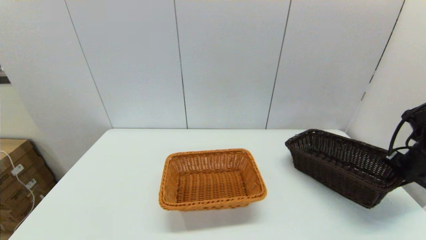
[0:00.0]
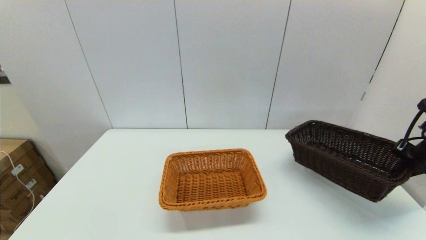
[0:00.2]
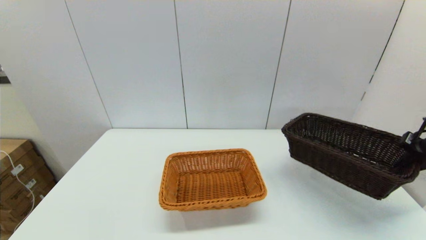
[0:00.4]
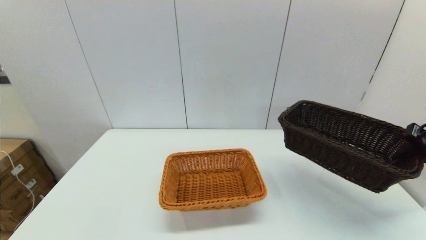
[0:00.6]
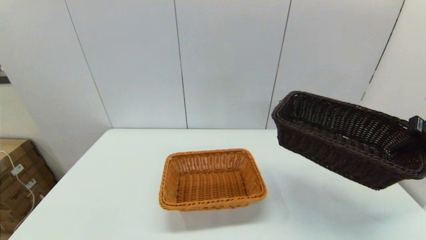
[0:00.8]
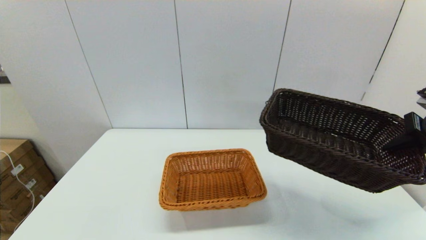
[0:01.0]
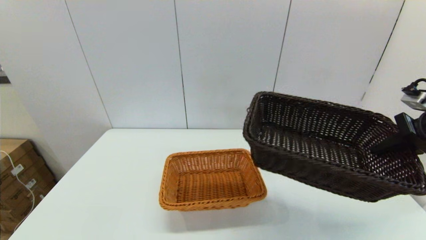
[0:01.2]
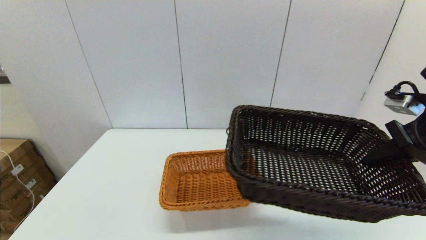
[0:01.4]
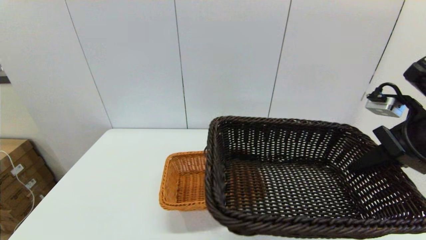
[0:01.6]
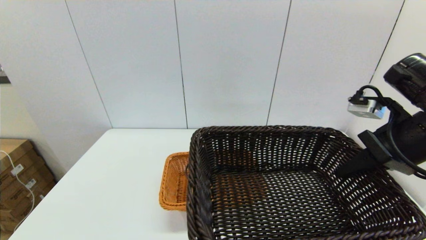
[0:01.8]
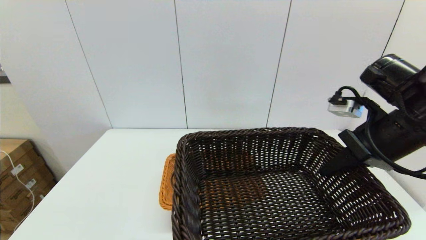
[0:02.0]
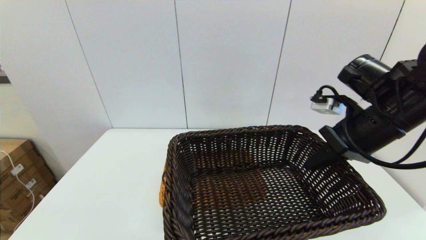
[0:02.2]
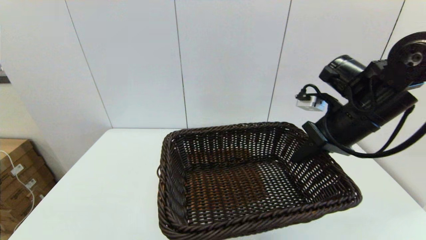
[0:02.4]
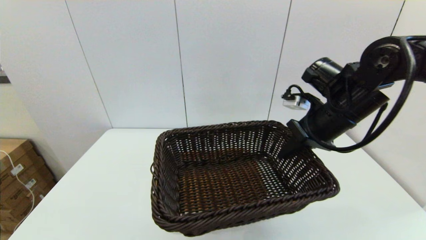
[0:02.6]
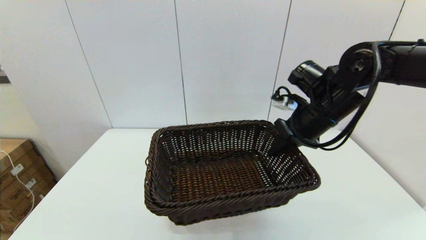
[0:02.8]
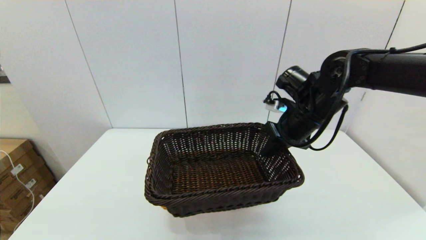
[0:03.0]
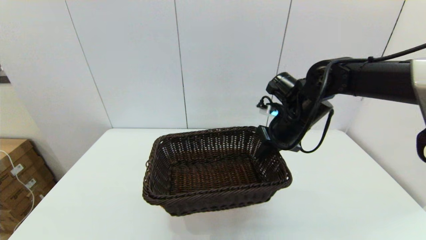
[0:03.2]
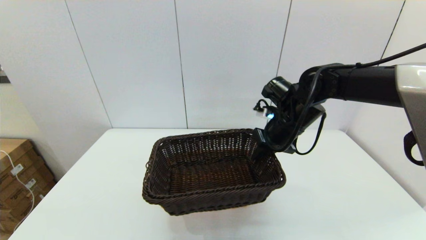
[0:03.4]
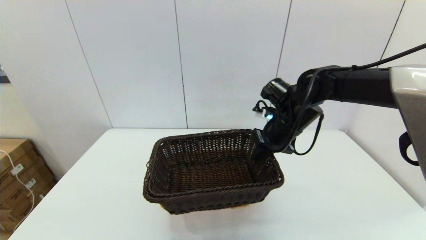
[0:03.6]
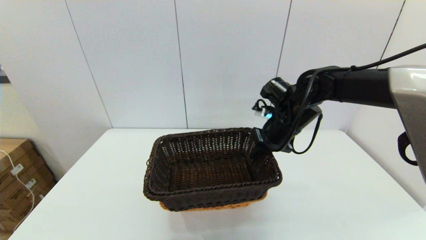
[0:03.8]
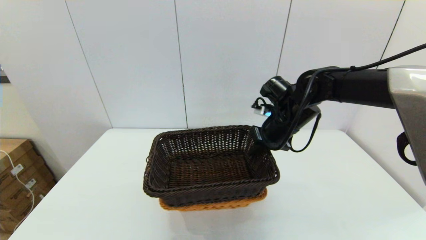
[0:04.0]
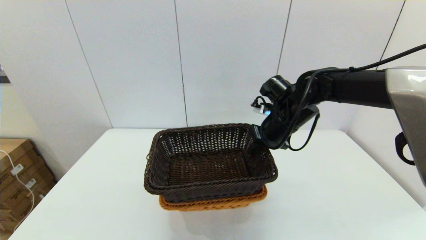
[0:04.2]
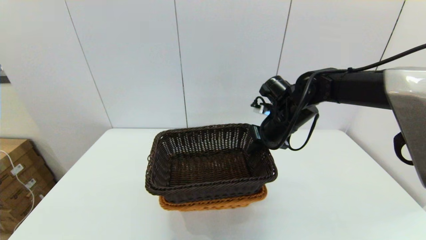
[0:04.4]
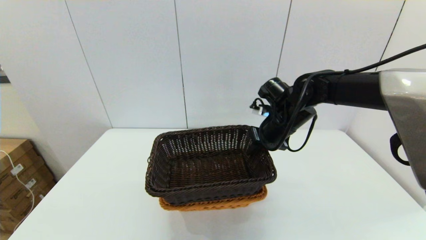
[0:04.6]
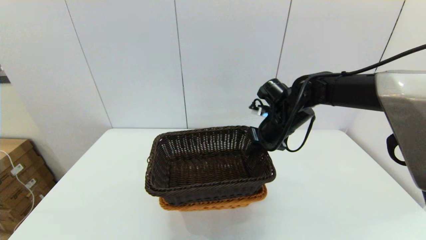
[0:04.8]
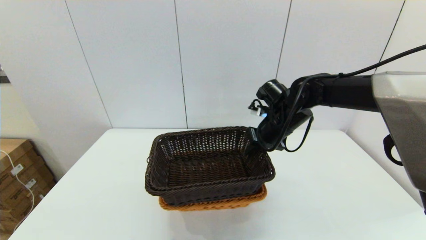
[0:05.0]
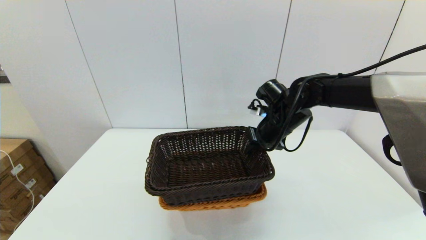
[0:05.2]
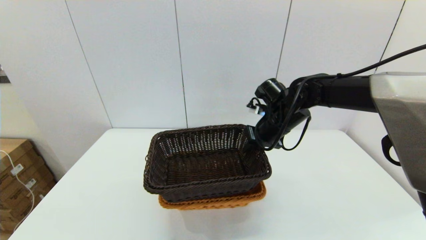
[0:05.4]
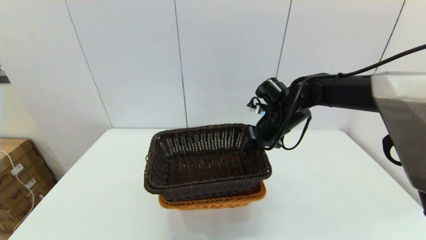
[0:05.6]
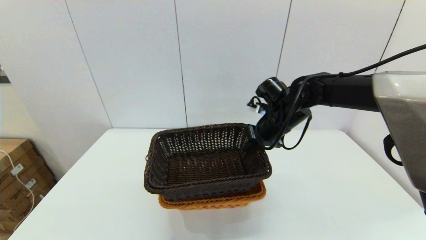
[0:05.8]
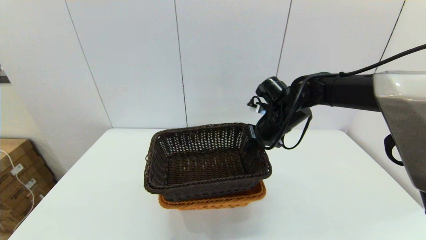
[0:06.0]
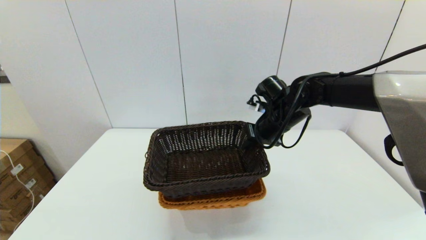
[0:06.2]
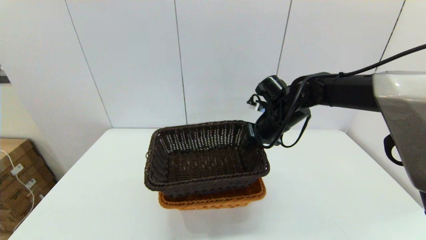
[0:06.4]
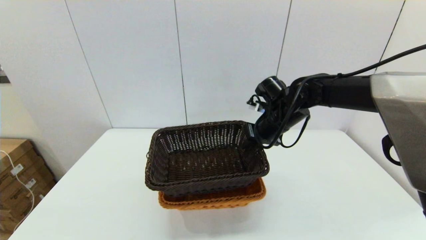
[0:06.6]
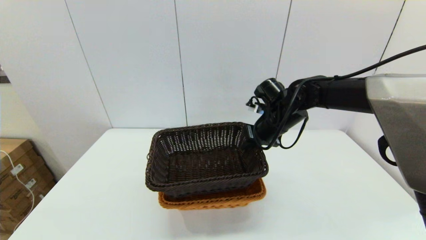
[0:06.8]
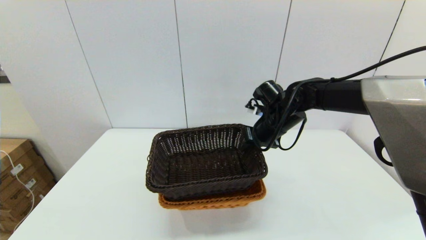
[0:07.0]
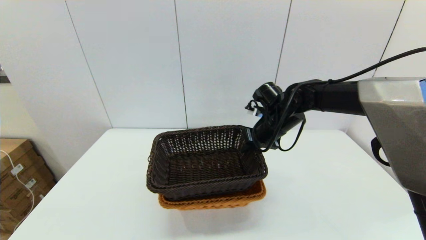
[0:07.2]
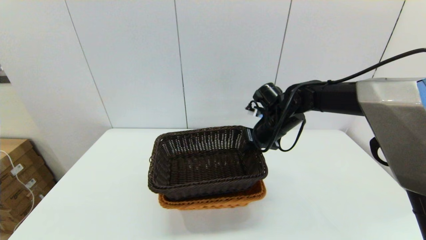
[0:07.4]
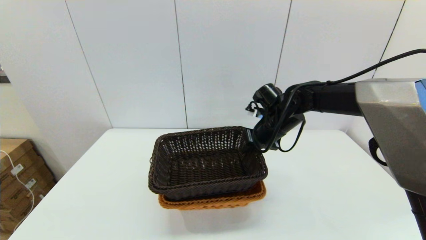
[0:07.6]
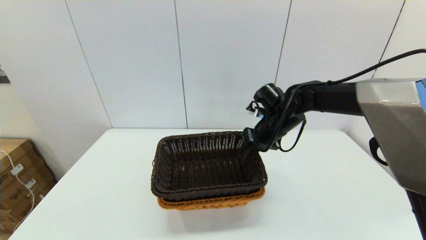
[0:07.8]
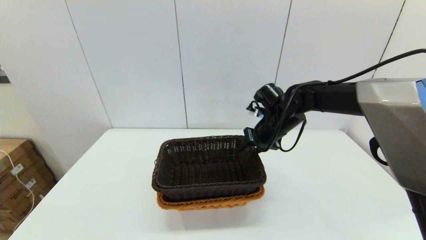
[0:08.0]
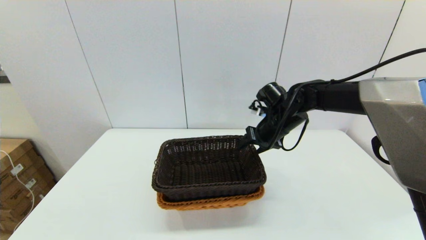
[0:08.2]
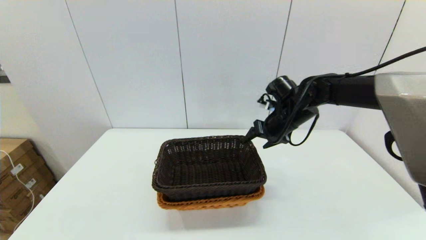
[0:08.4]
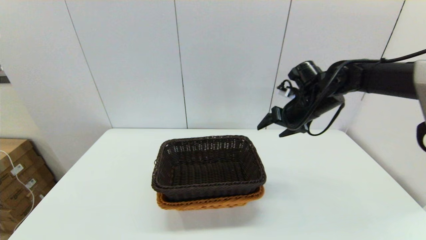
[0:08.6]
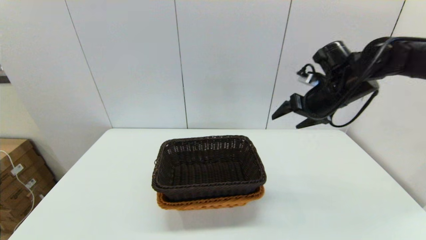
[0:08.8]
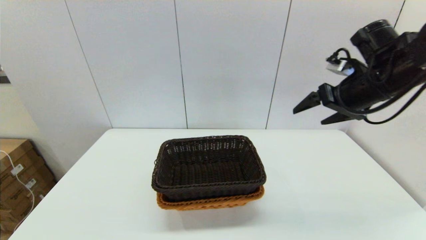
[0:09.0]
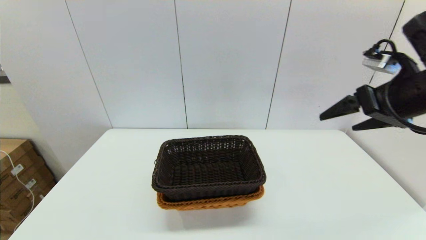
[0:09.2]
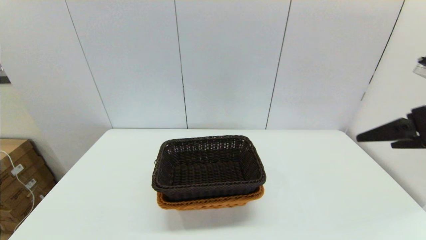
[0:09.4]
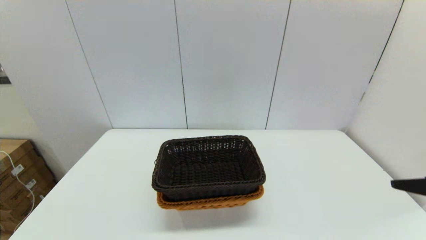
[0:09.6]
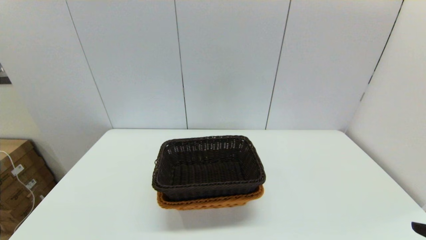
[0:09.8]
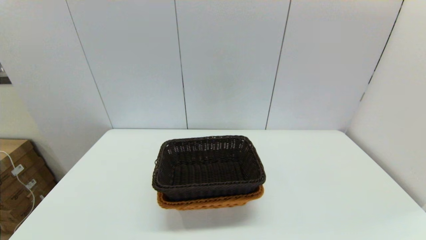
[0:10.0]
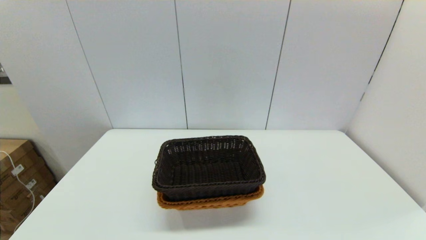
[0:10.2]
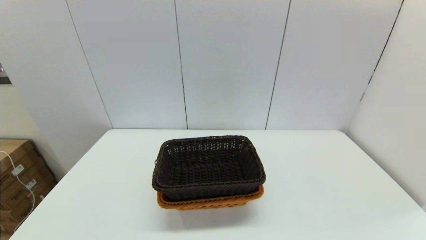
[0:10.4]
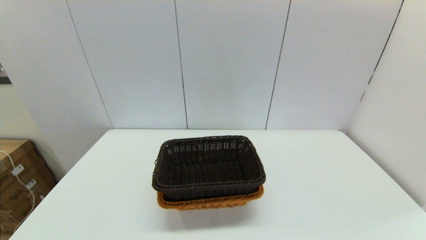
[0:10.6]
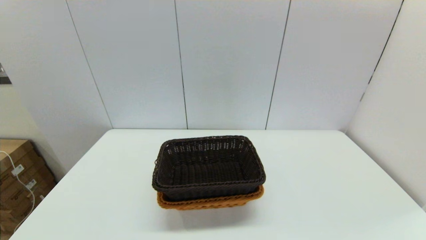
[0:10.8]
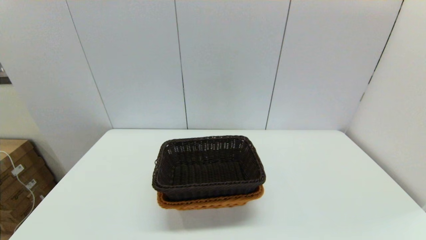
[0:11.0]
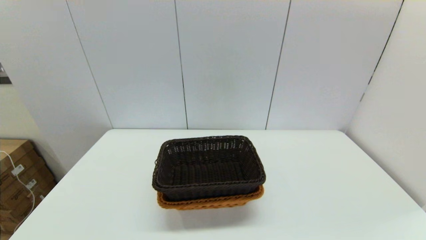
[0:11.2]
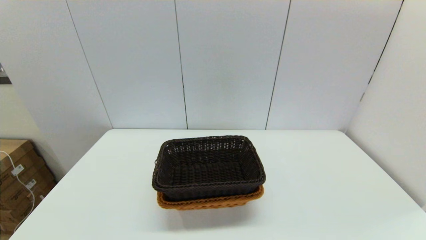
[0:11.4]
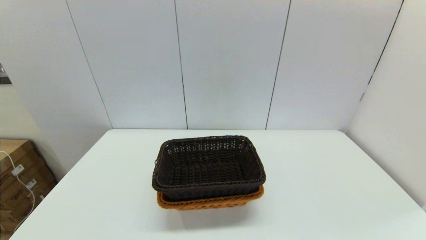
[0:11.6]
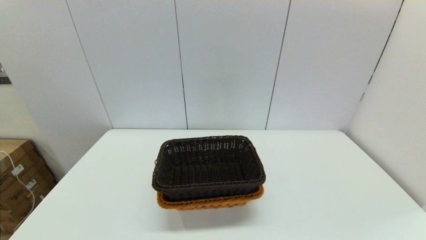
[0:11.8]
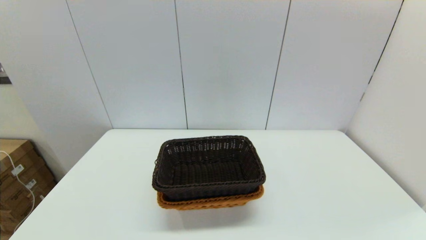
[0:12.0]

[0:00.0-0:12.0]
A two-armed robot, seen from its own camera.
Task of the whole recording: stack a basket on top of another basket.
Step, 0:00.0 to 0:08.2: Place the dark basket into the light color basket with the right gripper.
0:00.0 to 0:01.6: The right gripper heads to the left, upward and backward, covering some 20 cm.
0:01.6 to 0:03.0: The right gripper is displaced to the left, forward and downward by roughly 20 cm.
0:03.0 to 0:04.4: The right gripper moves some 5 cm.
0:04.4 to 0:07.6: There are only small adjustments of the grippers.
0:07.6 to 0:09.0: The right gripper travels upward, to the right and backward by roughly 20 cm, and opens.
0:09.0 to 0:10.4: The right gripper goes some 30 cm backward.

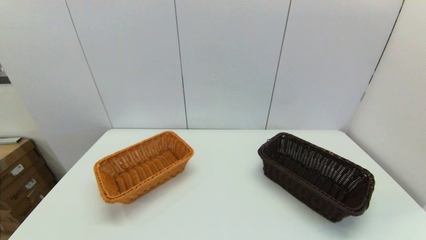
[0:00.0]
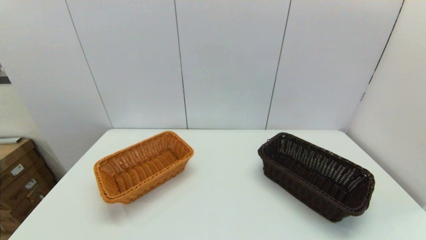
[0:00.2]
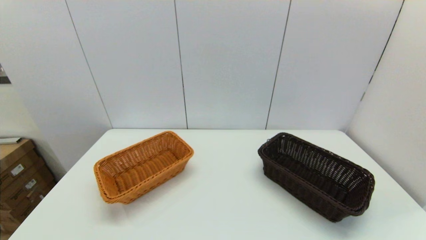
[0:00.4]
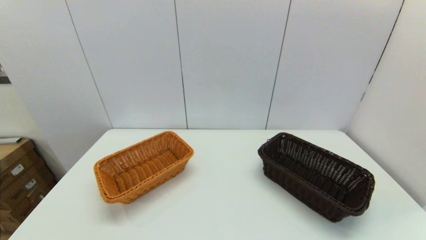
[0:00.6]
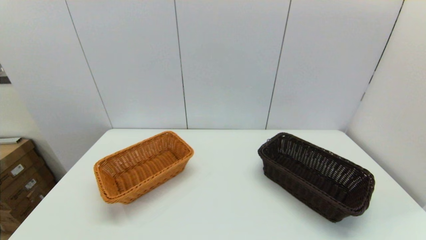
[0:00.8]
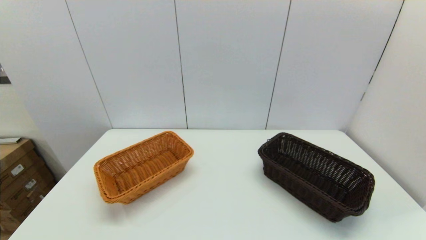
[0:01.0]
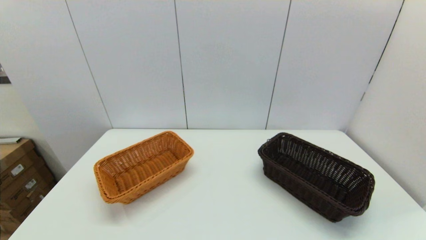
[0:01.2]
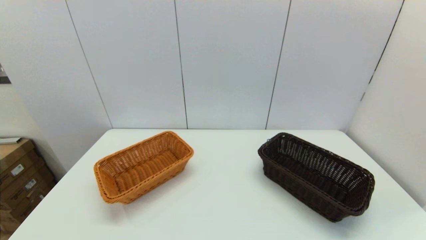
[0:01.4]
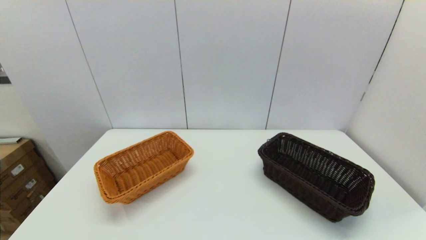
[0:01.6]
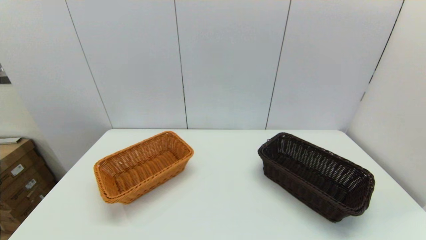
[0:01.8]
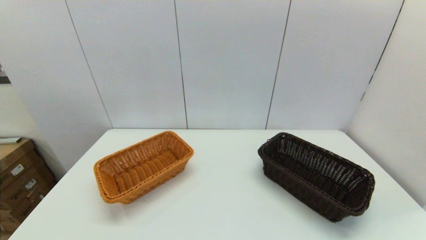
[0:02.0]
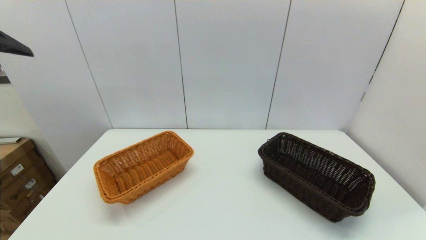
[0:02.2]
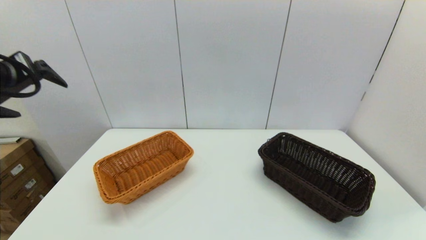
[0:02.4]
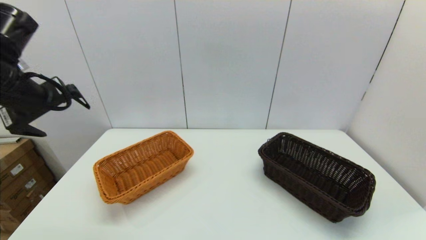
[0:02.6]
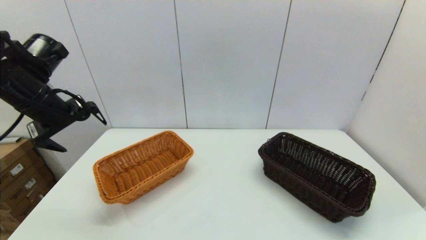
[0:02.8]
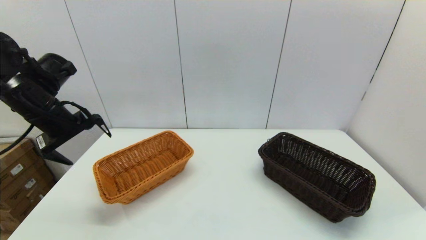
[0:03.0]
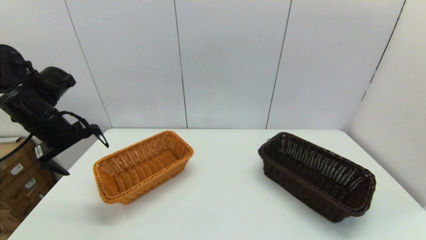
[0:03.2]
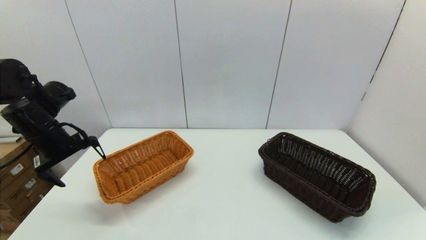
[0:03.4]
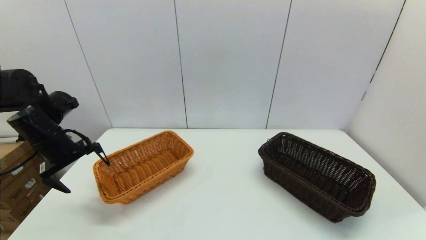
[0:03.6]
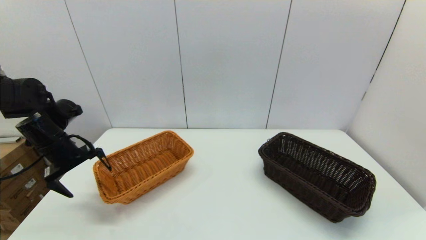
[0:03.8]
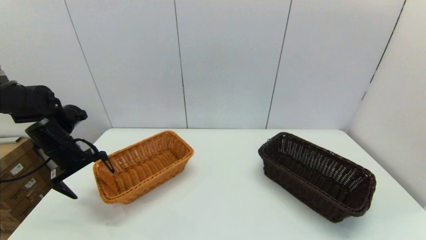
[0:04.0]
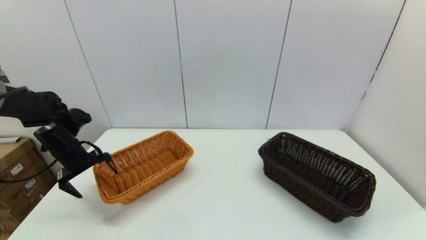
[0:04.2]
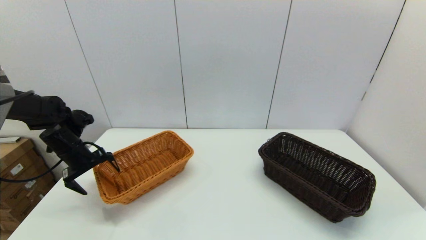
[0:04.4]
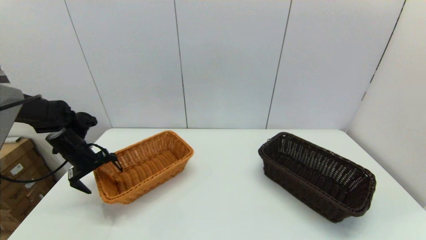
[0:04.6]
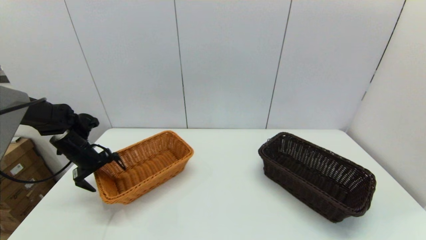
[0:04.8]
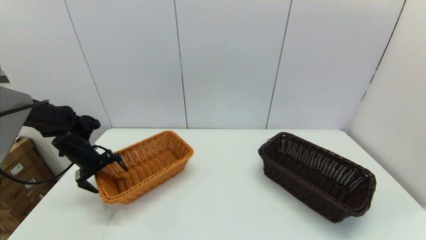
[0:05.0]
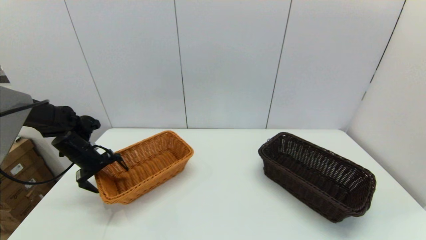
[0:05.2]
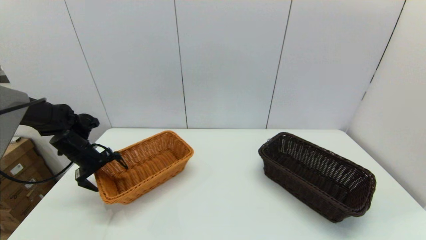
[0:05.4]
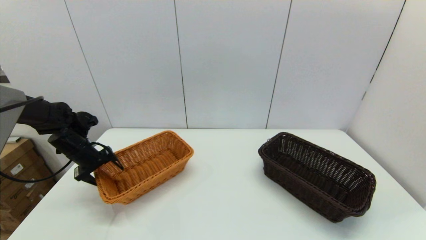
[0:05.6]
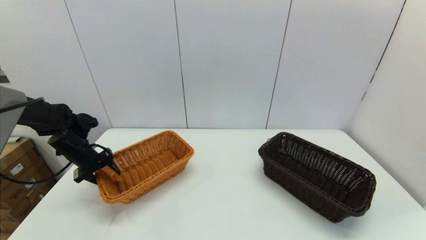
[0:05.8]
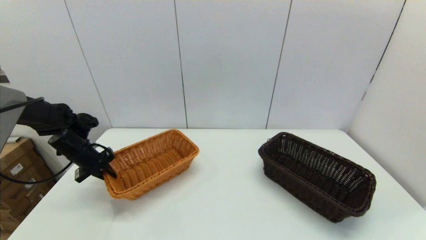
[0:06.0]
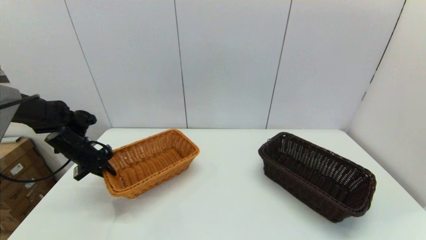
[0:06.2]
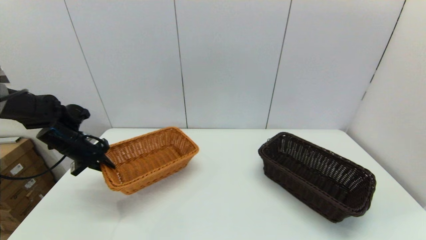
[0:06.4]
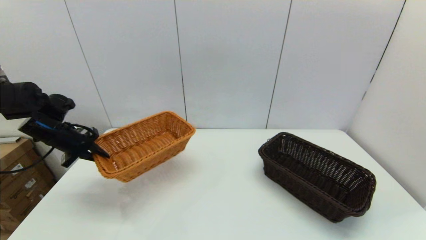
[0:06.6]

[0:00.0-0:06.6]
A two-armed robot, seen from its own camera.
Task of the whole recording: stack a basket on top of another basket.
Step, 0:02.2 to 0:06.4: Grasp the light basket with the left gripper.
0:01.6 to 0:03.2: The left gripper moves forward, some 30 cm.
0:03.2 to 0:05.0: The left gripper moves downward and forward, about 15 cm.
0:05.0 to 0:06.6: The left gripper moves upward, some 10 cm, and closes.
